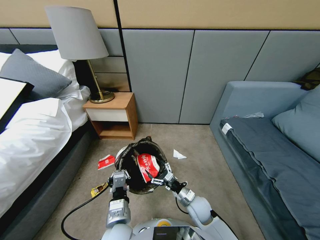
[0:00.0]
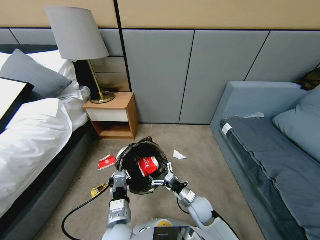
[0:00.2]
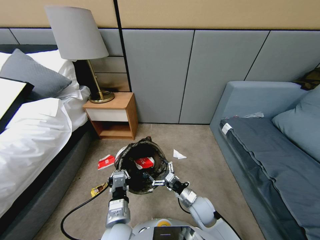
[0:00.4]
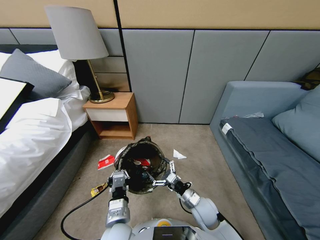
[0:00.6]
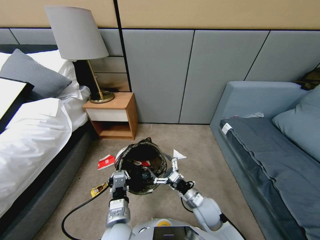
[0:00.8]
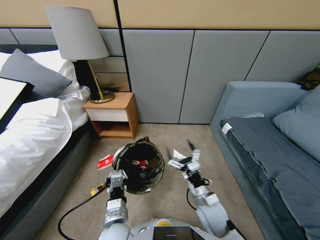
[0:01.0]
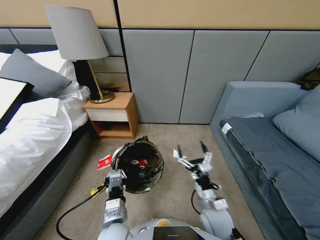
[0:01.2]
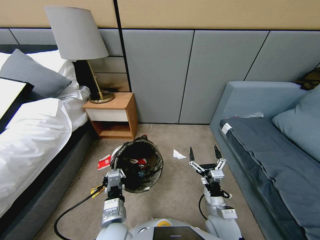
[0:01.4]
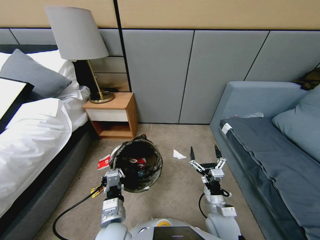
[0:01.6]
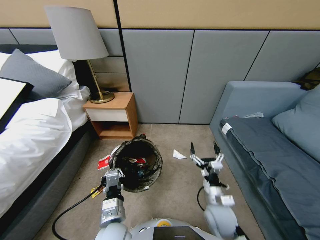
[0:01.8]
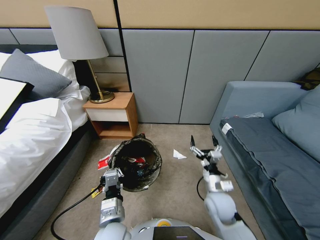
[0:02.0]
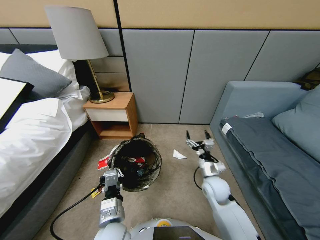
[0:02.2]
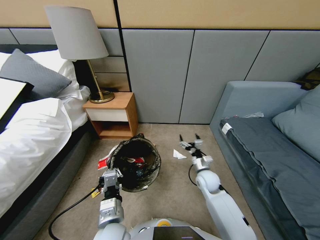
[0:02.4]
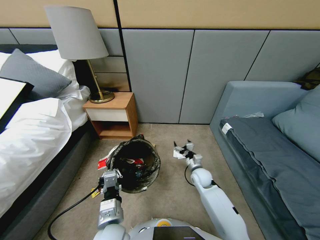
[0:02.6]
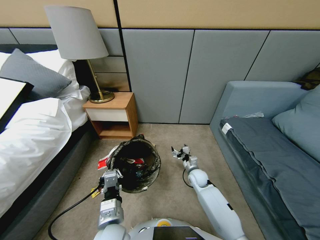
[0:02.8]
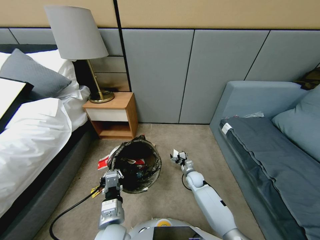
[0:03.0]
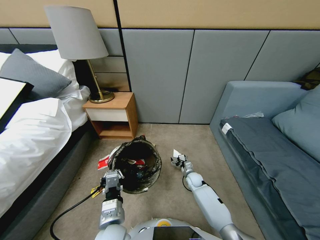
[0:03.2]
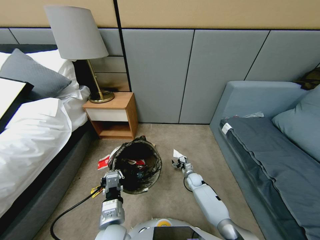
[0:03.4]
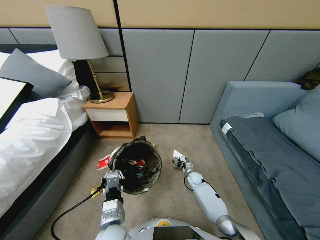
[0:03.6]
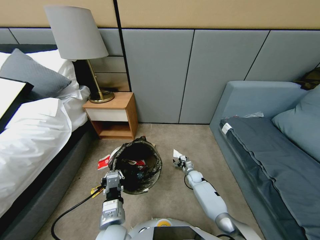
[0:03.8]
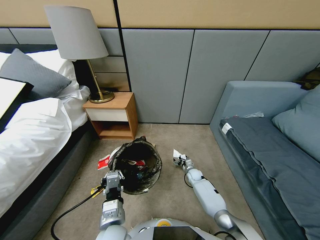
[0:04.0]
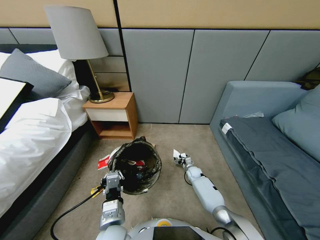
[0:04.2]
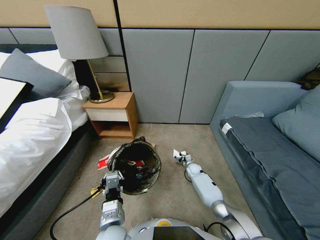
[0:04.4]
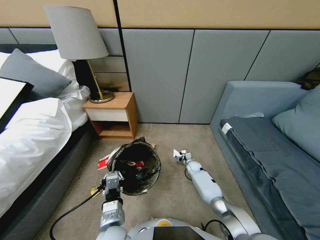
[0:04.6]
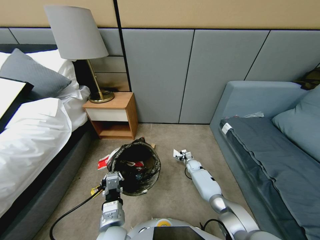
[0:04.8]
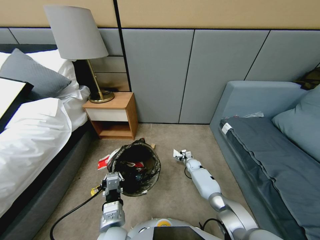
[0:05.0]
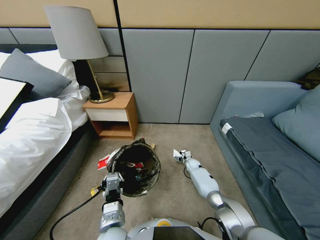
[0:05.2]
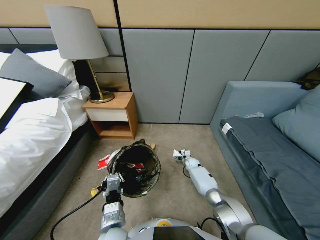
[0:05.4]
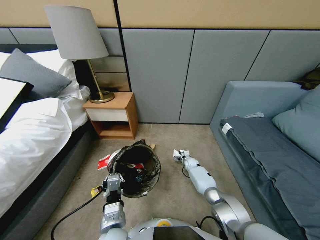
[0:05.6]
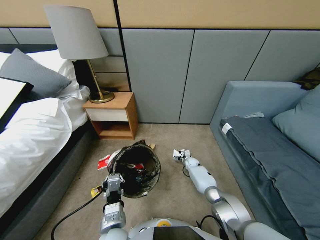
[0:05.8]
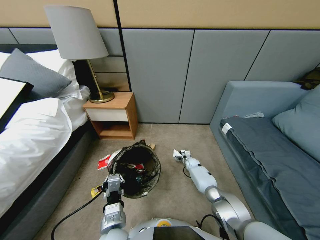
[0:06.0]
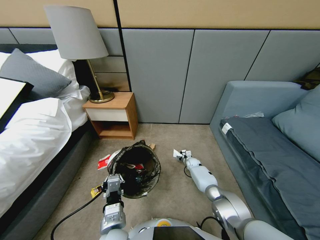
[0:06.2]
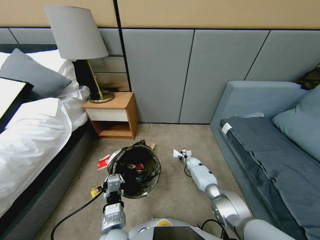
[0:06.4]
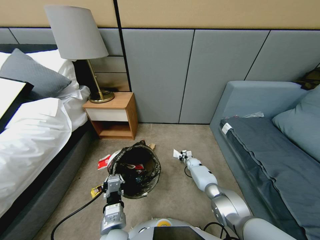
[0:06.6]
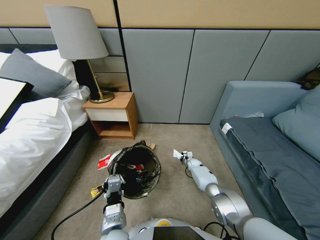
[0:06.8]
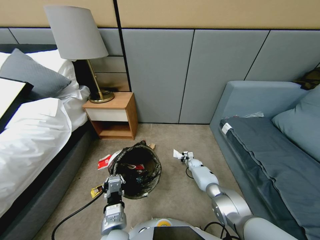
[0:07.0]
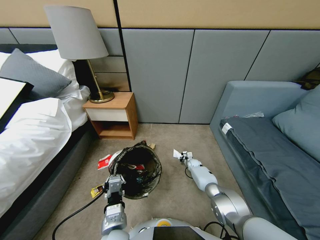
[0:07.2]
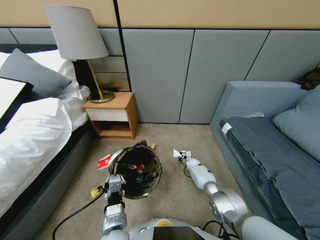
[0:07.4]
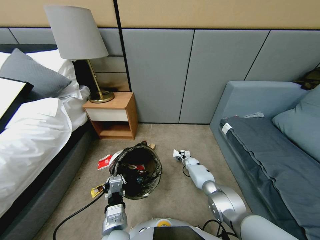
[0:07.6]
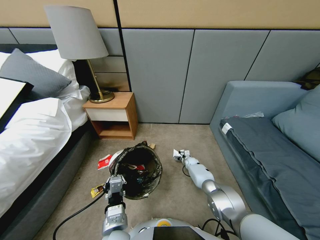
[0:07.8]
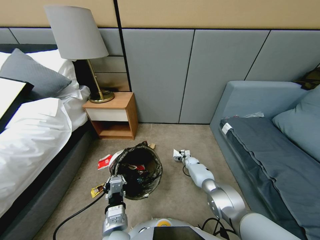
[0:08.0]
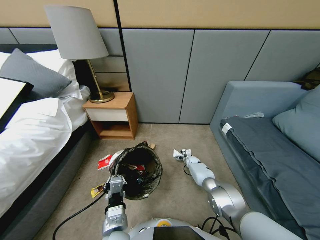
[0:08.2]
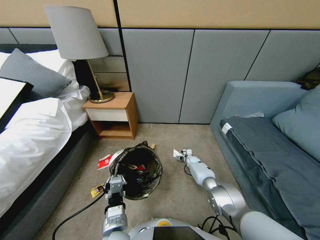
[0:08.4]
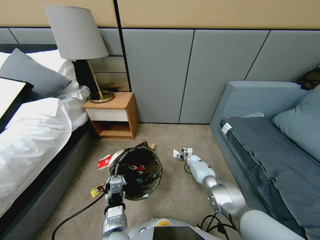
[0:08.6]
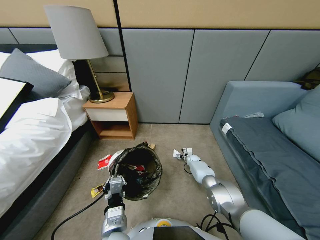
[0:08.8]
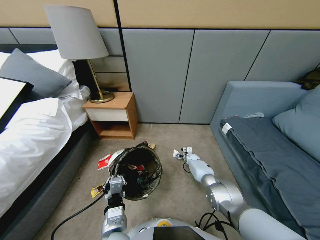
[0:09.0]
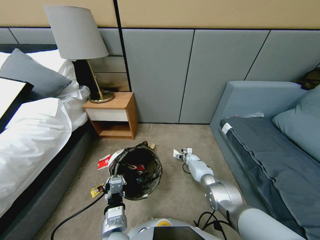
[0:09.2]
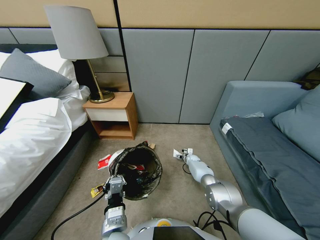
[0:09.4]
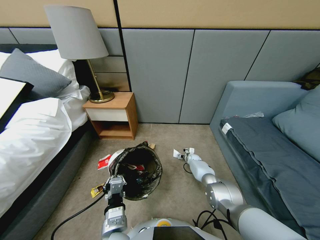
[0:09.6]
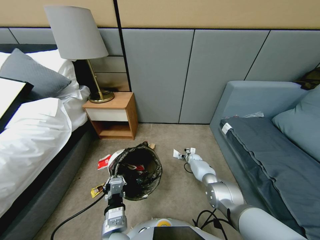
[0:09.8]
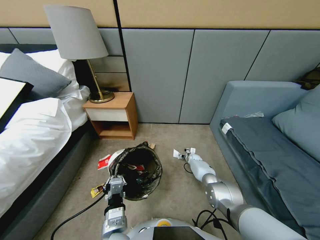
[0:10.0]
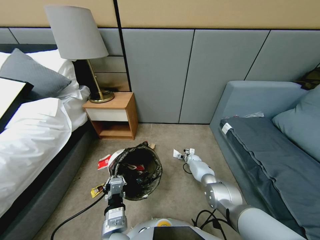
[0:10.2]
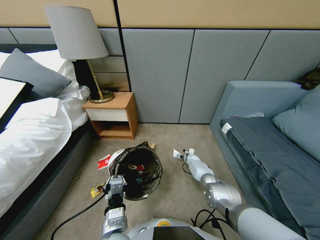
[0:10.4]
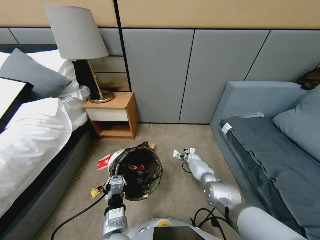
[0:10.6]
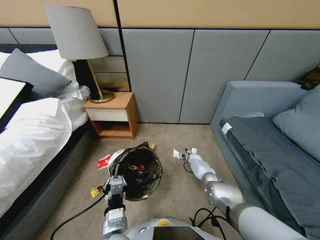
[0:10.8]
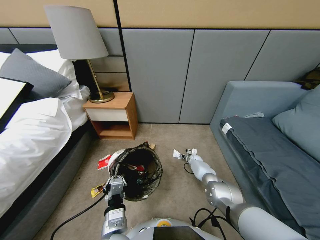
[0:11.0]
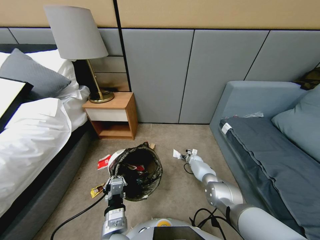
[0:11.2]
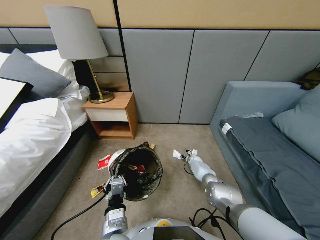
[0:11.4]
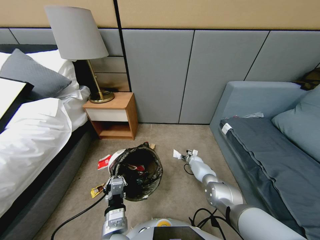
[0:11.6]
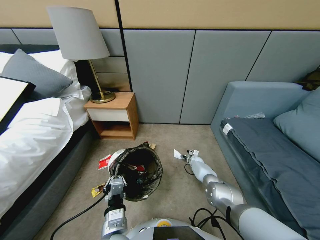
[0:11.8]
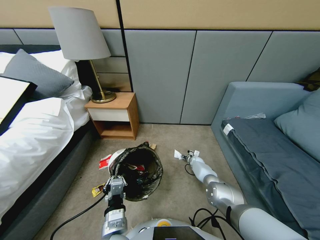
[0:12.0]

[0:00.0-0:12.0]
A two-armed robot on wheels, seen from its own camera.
Task of the whole recording: Pick up the trash bin, then pick up the garbage from the floor and place it into the trash bin.
0:00.0 to 0:01.6: The right gripper travels upward and backward by approximately 10 cm.
0:01.6 to 0:03.0: The right gripper shifts about 25 cm forward and downward.
0:03.0 to 0:04.4: The right gripper shifts about 10 cm forward.
0:04.4 to 0:06.0: There are only small adjustments of the grippers.
0:06.0 to 0:07.6: The right gripper closes, then reopens.
0:07.6 to 0:09.0: The grippers move only a little.
0:09.0 to 0:10.4: The grippers stay close to where they were, moving slightly.
0:10.4 to 0:12.0: The right gripper closes its fingers.

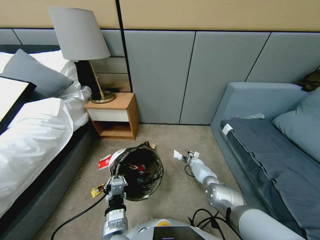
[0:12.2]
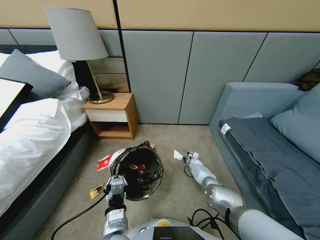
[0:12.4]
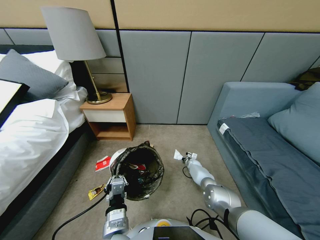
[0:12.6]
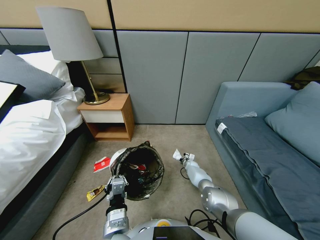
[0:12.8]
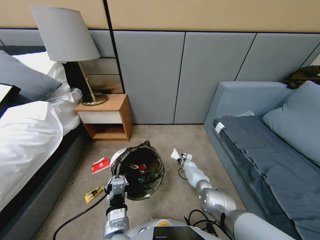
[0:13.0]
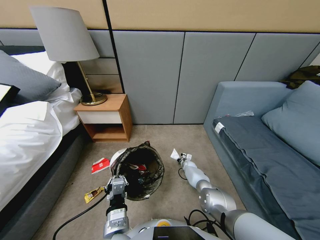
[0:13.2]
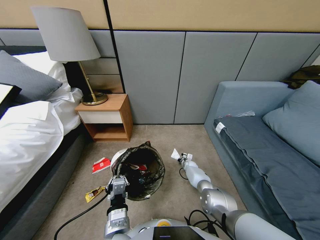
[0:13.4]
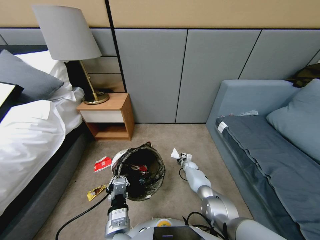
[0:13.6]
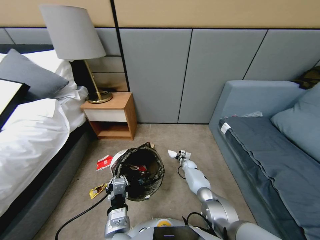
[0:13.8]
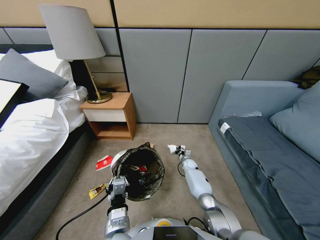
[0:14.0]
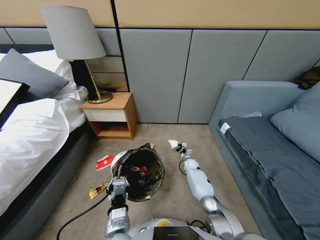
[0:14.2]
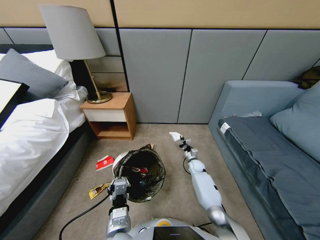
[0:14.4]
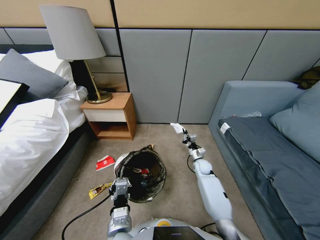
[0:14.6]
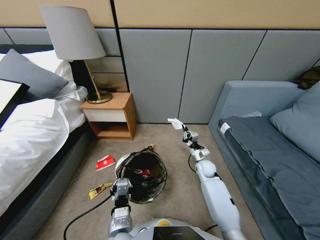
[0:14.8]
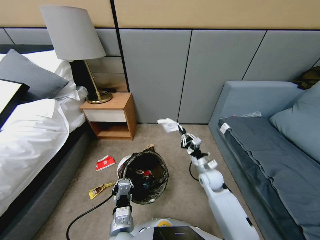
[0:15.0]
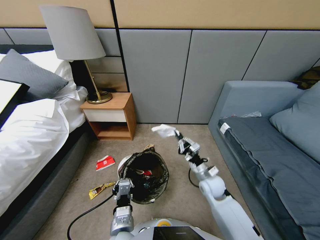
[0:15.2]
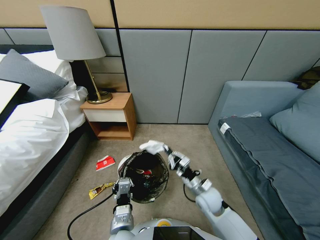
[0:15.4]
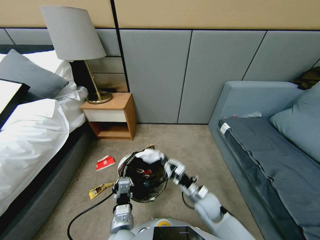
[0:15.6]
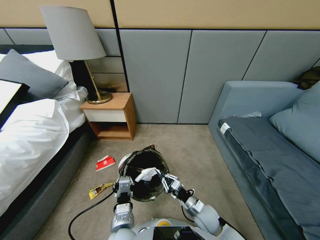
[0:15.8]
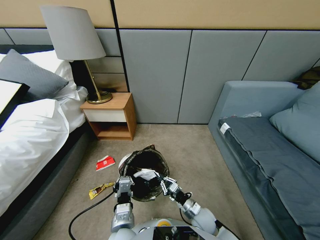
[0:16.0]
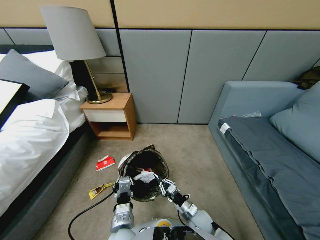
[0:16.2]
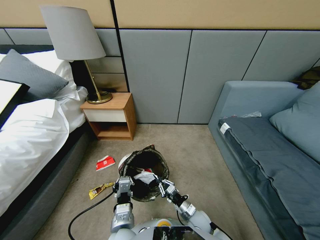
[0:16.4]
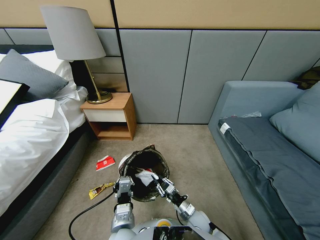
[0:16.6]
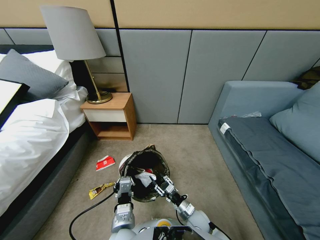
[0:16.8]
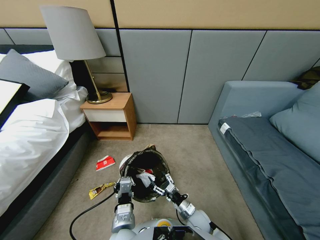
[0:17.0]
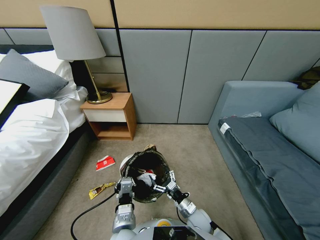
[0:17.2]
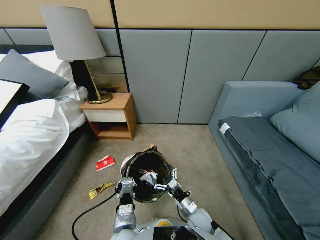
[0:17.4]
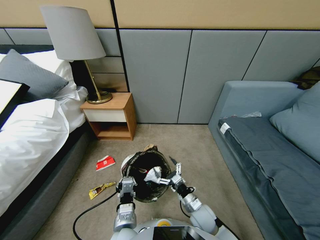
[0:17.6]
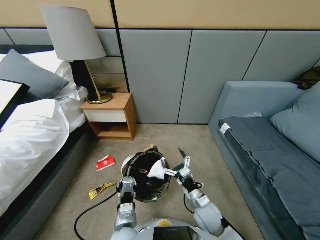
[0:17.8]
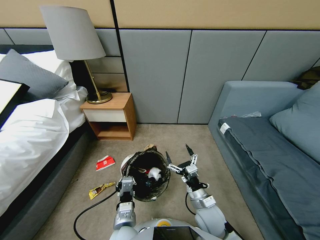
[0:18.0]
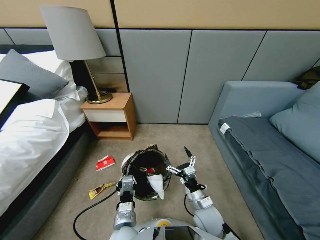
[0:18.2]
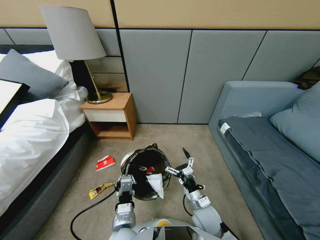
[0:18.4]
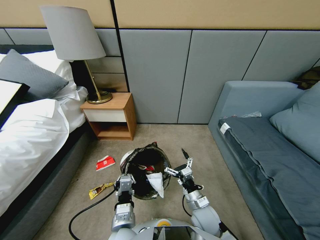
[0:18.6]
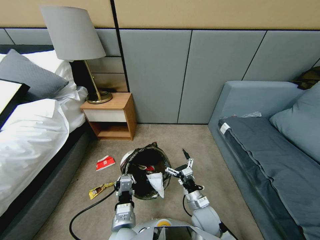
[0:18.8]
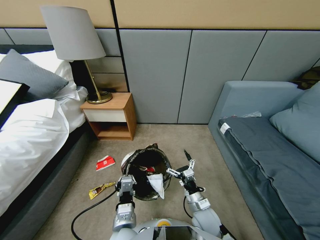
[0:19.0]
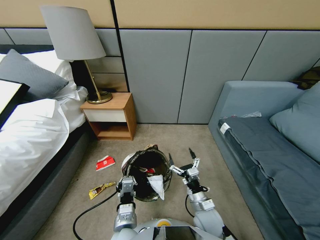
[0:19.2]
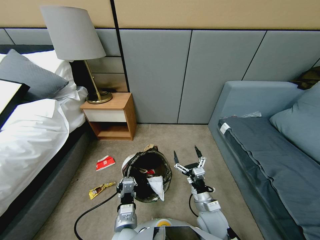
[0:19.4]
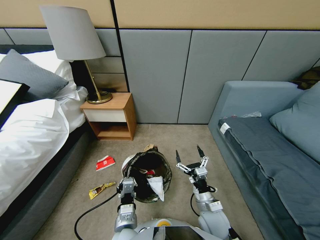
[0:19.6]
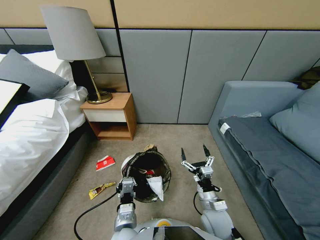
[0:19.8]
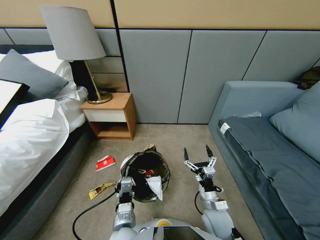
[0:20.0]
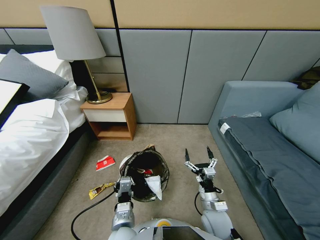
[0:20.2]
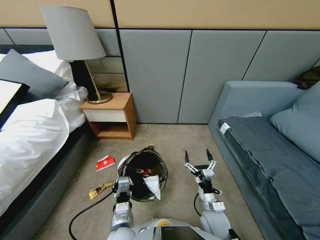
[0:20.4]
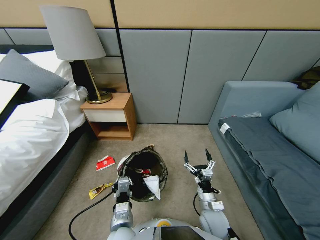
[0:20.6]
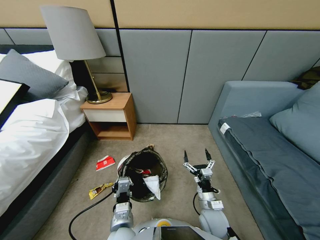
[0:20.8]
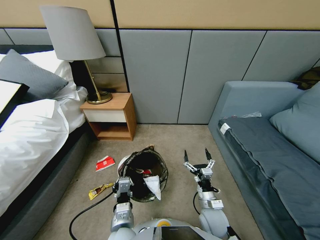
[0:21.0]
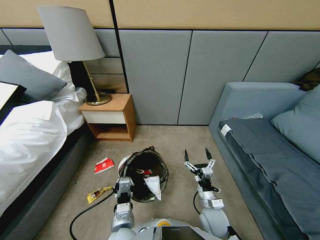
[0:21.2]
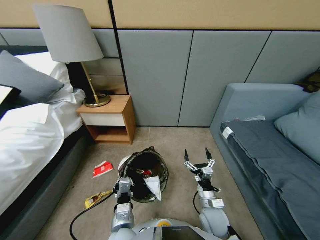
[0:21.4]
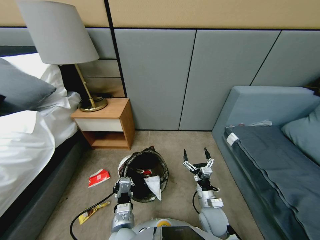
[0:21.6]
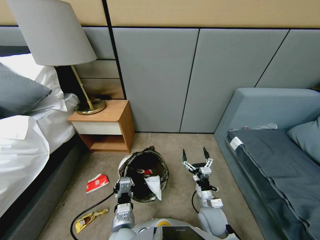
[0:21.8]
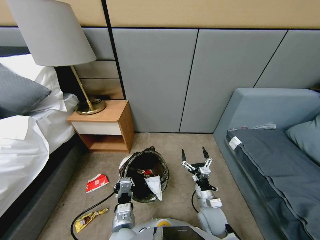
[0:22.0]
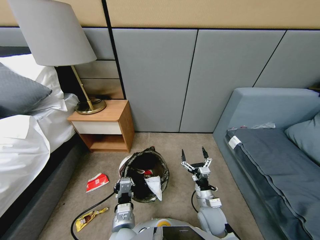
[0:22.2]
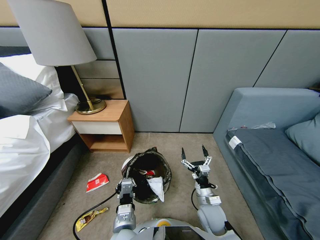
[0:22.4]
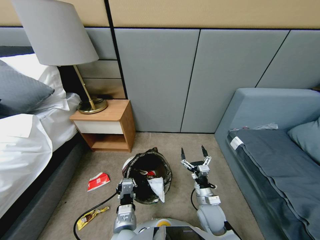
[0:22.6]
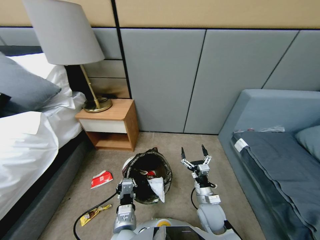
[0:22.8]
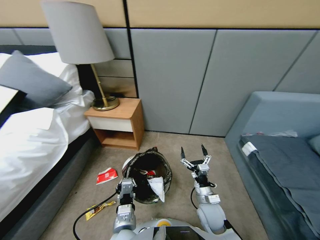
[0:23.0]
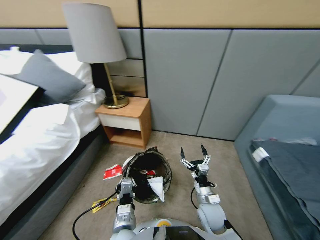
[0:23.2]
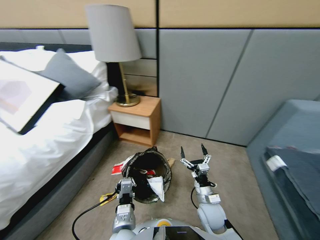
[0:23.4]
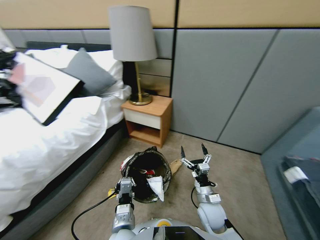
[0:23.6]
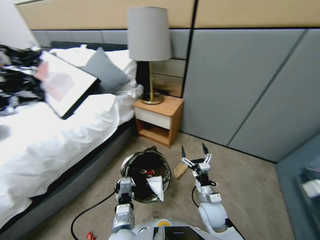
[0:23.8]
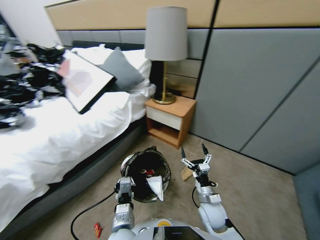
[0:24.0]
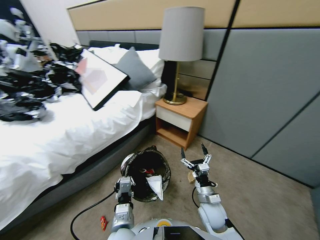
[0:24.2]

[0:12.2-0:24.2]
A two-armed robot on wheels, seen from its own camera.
Task of the whole recording: Pick up the trash bin, then pick up the garbage from the floor and place it into the trash bin.
0:12.2 to 0:13.8: The right gripper is displaced to the left by about 5 cm, and closes.
0:13.8 to 0:15.2: The right gripper travels backward and upward by approximately 30 cm.
0:15.2 to 0:16.6: The right gripper moves downward and backward, approximately 15 cm.
0:16.6 to 0:18.2: The right gripper travels upward by some 10 cm, and opens.
0:18.2 to 0:21.2: The grippers move only a little.
